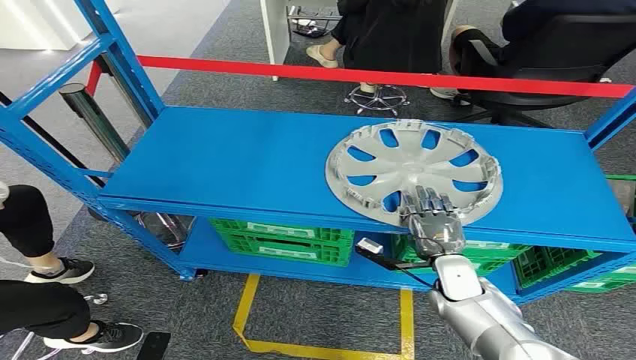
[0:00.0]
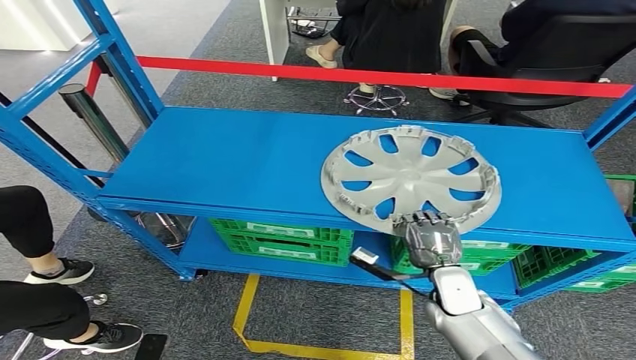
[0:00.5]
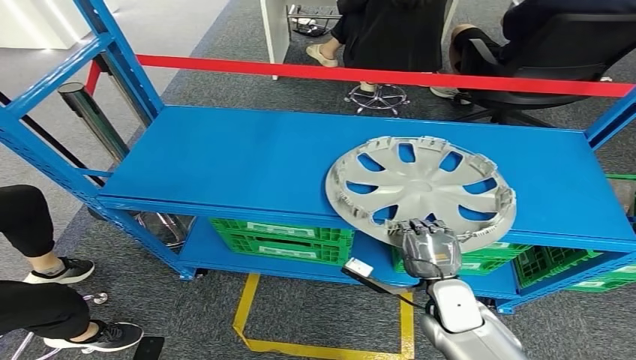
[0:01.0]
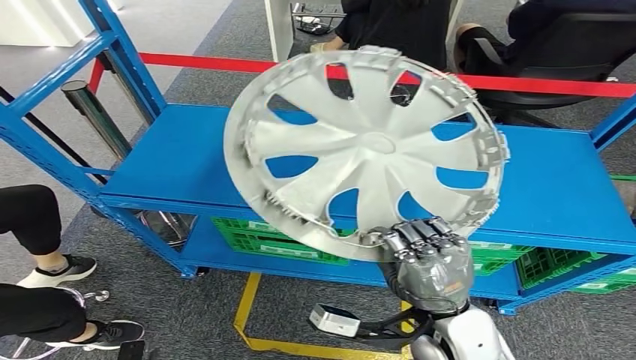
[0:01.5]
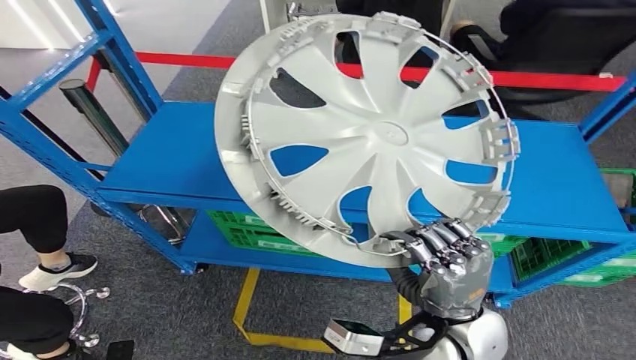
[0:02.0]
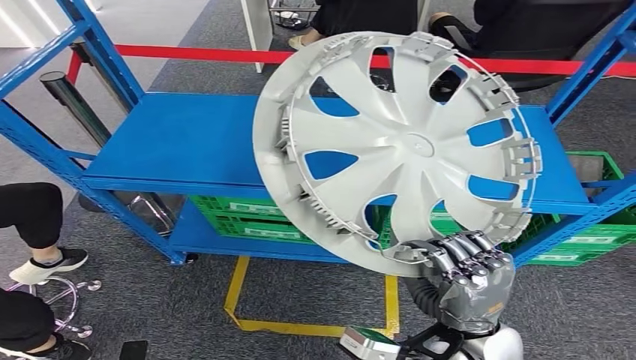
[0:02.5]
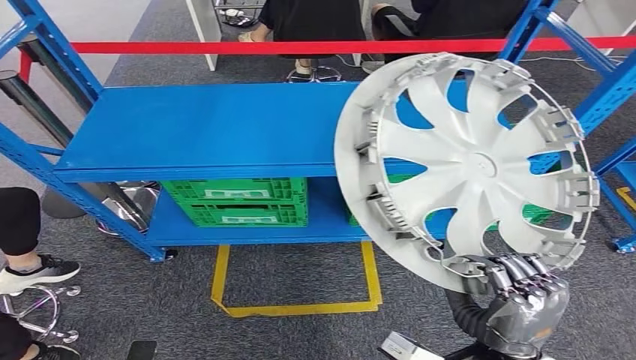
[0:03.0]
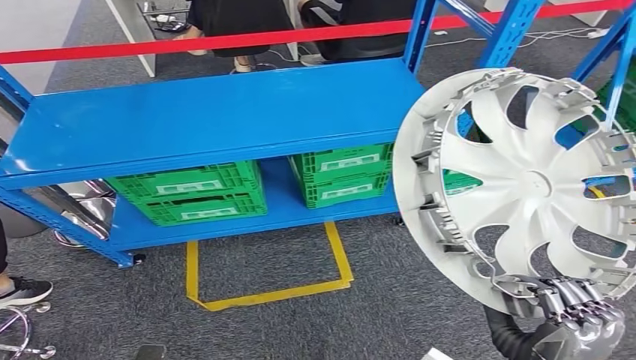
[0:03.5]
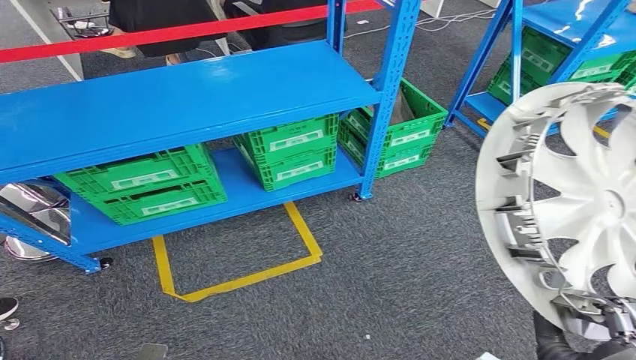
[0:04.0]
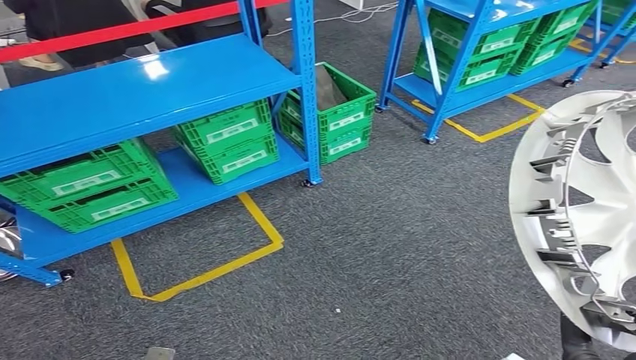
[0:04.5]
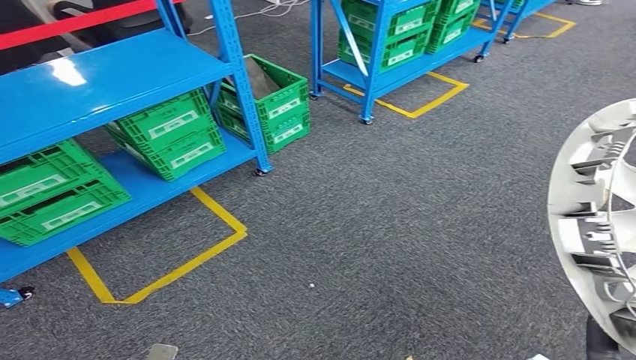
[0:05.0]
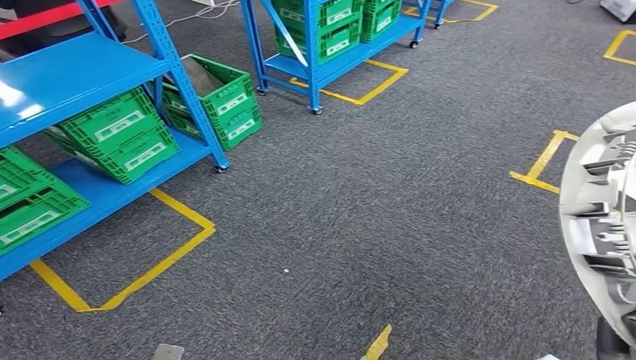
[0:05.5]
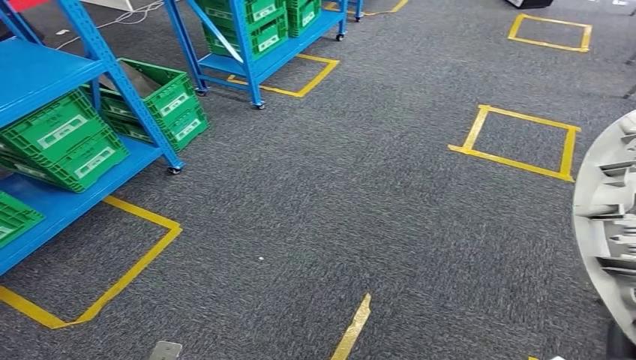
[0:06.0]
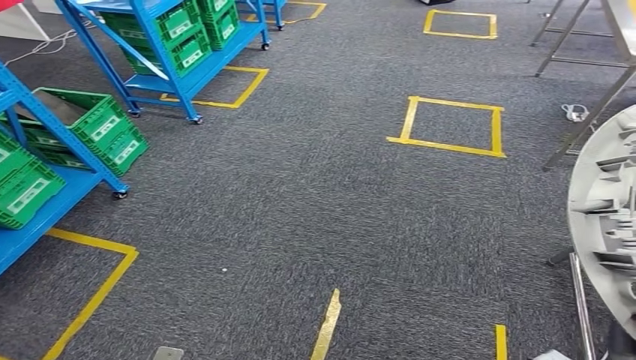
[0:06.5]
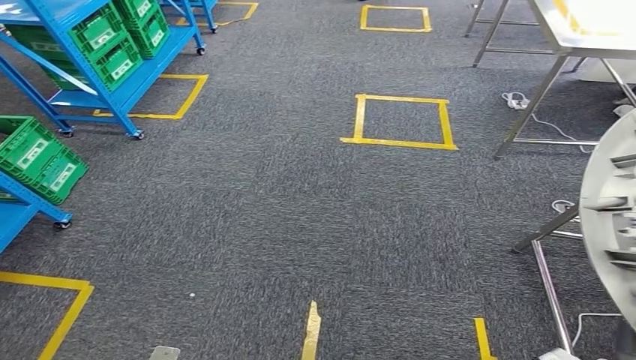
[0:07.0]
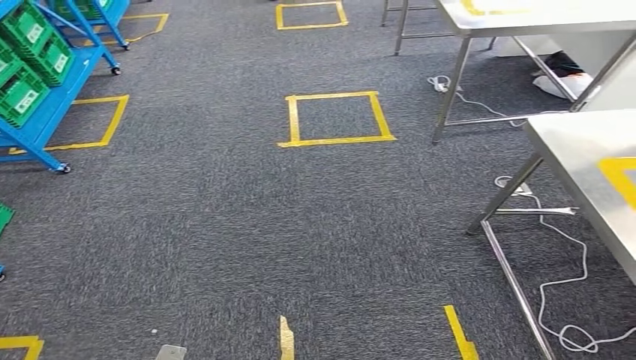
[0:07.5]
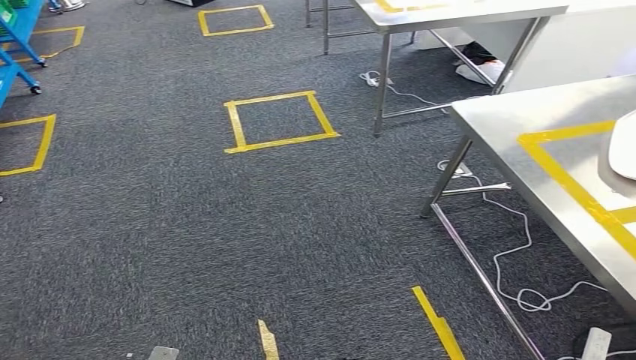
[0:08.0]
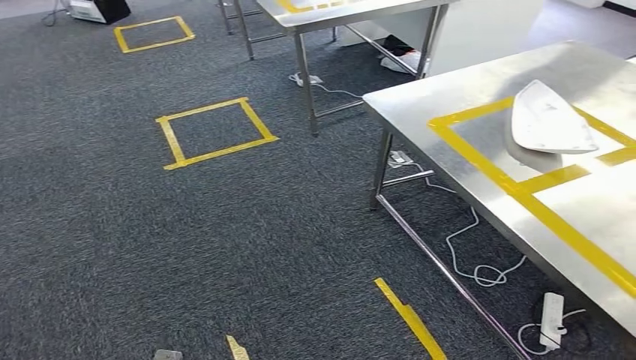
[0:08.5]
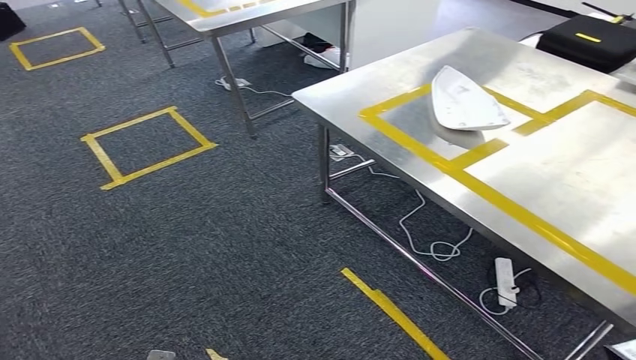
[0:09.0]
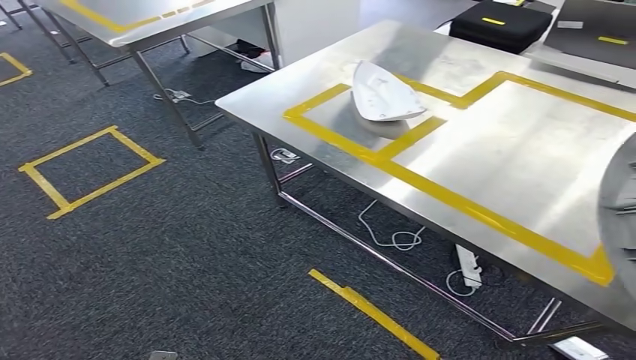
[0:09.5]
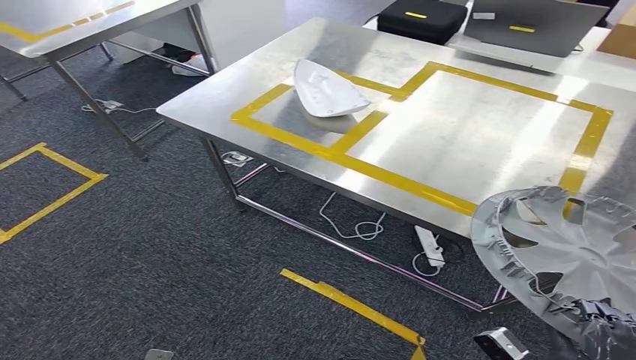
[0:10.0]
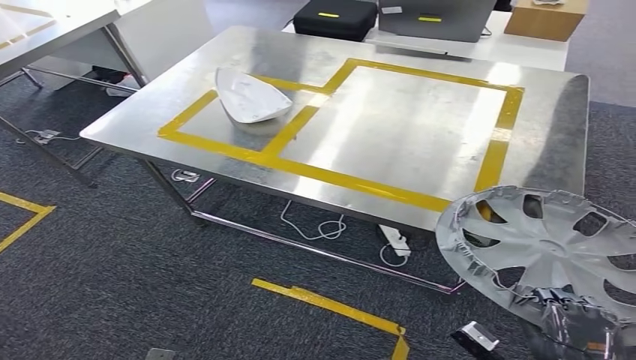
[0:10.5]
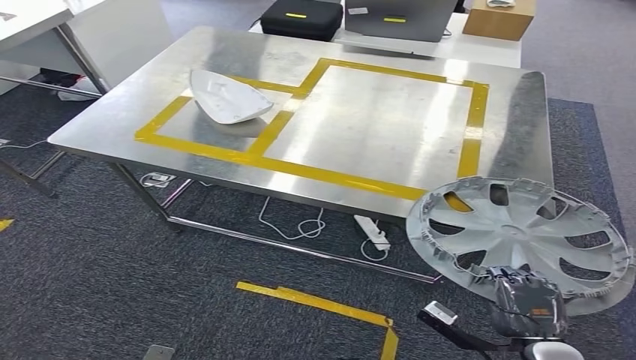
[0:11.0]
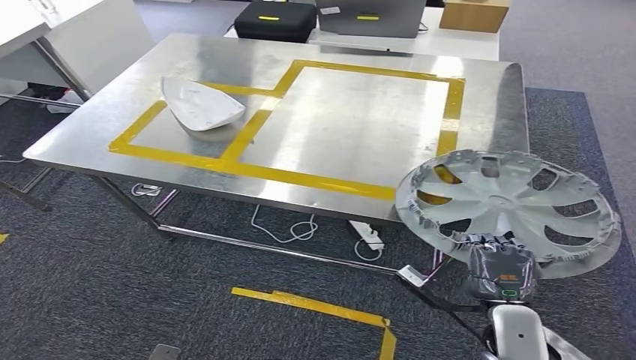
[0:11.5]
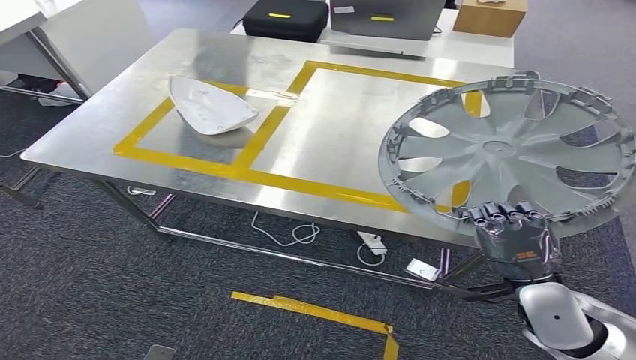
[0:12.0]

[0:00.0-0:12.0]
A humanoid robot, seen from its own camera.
Step, 0:00.0 to 0:01.5: Pick up the small component from the shelf.

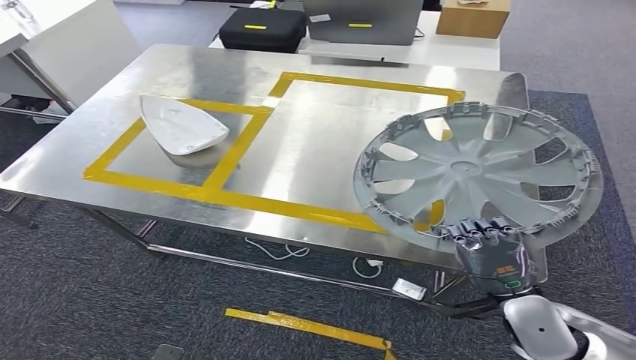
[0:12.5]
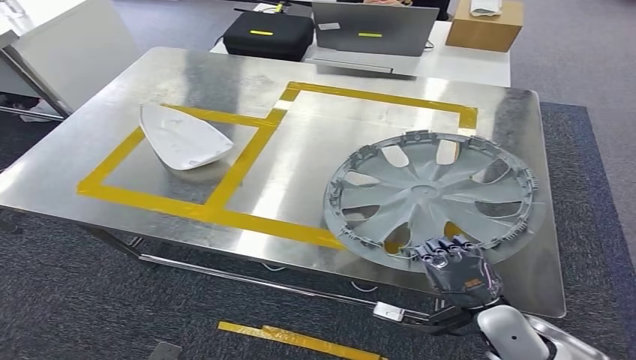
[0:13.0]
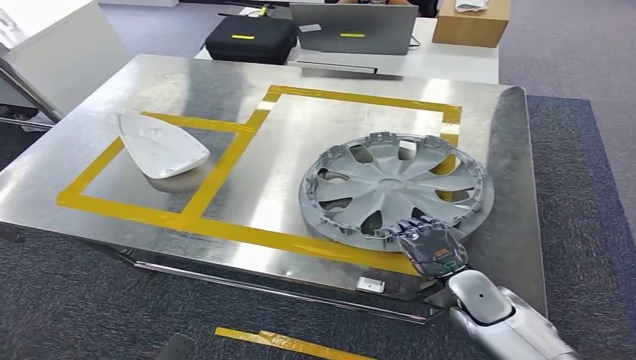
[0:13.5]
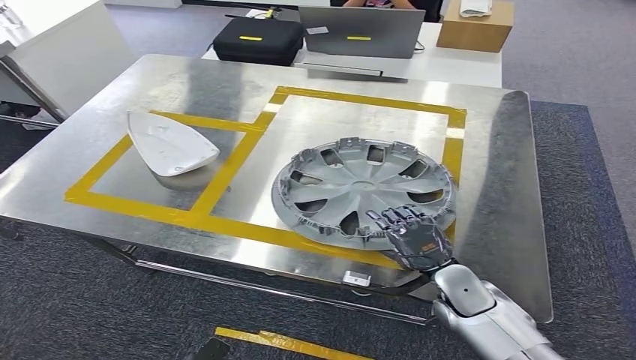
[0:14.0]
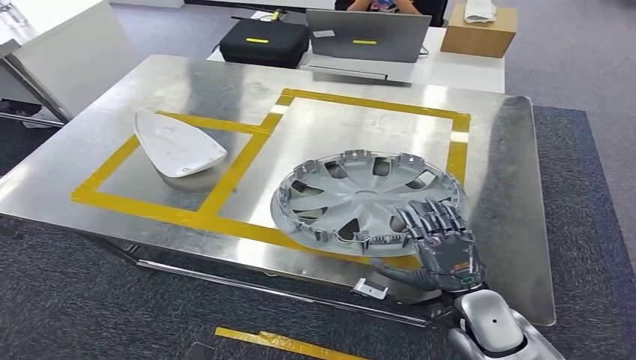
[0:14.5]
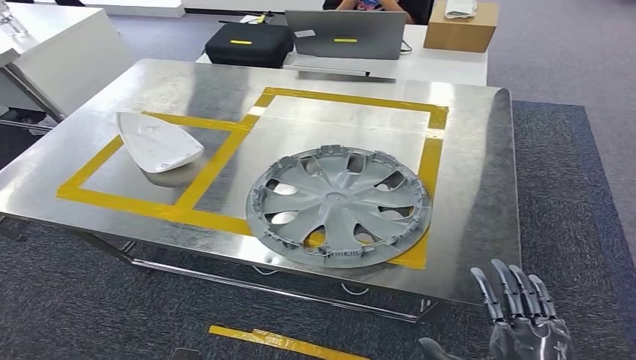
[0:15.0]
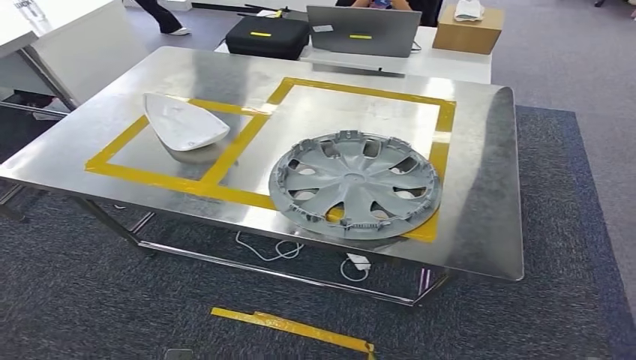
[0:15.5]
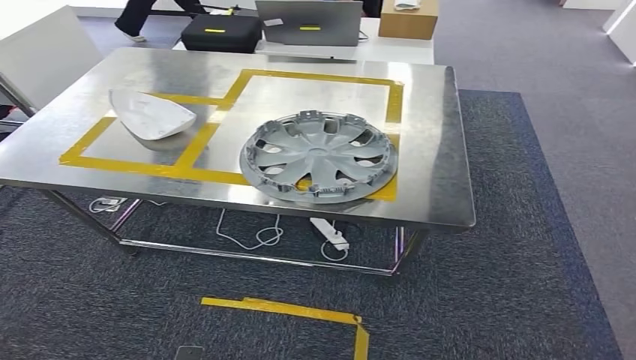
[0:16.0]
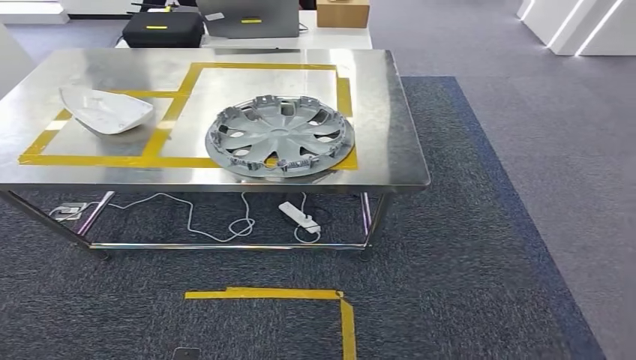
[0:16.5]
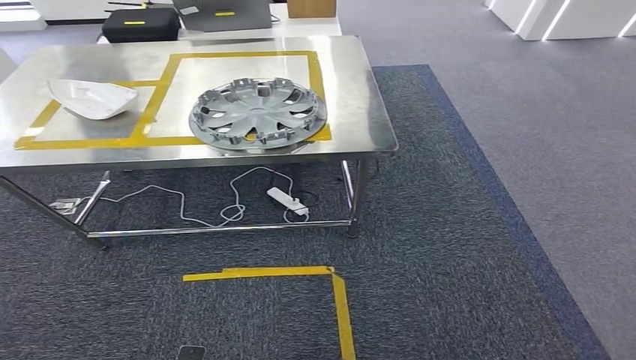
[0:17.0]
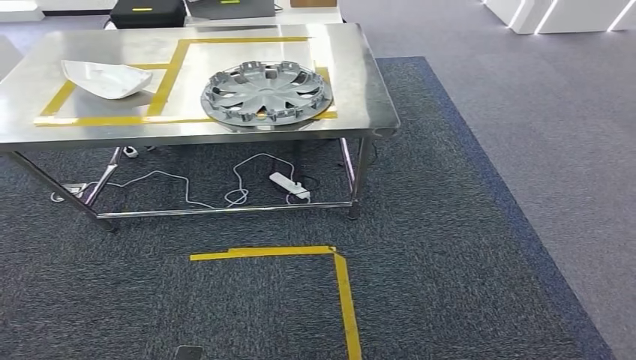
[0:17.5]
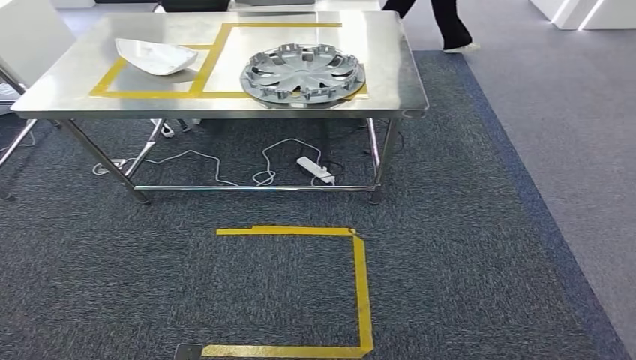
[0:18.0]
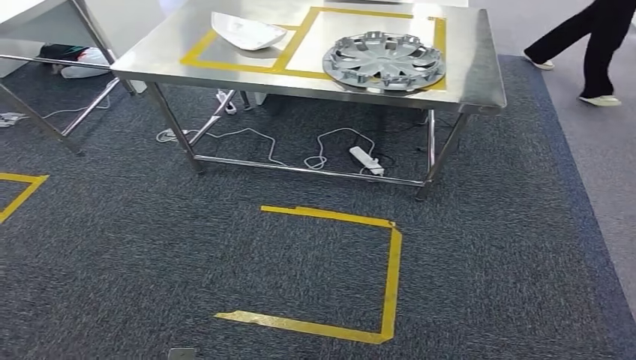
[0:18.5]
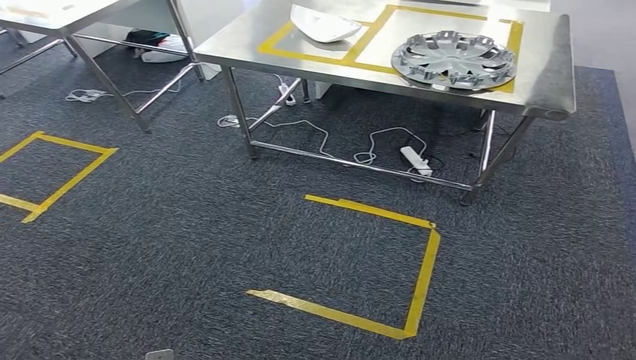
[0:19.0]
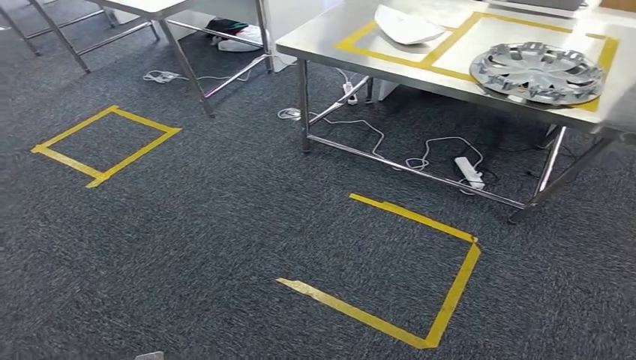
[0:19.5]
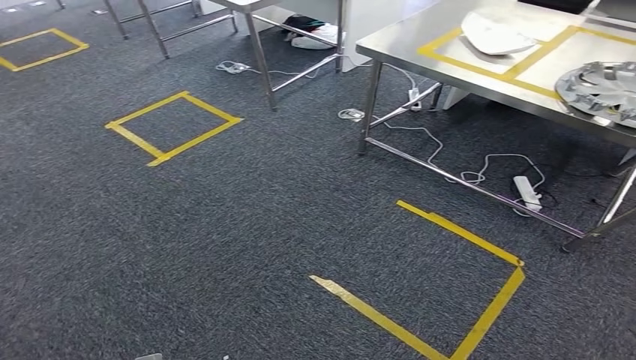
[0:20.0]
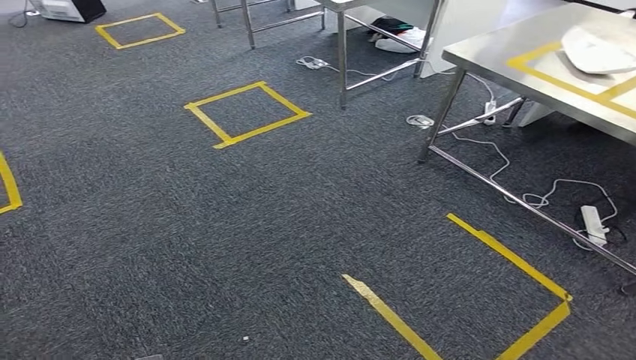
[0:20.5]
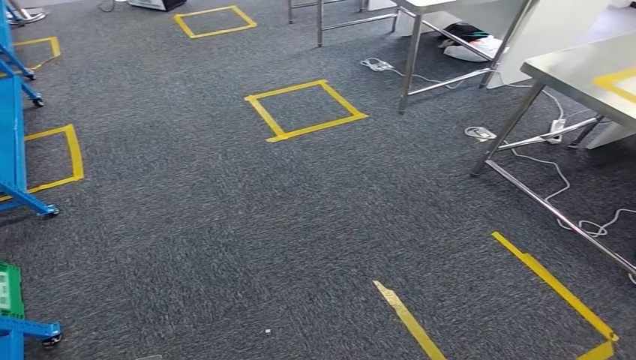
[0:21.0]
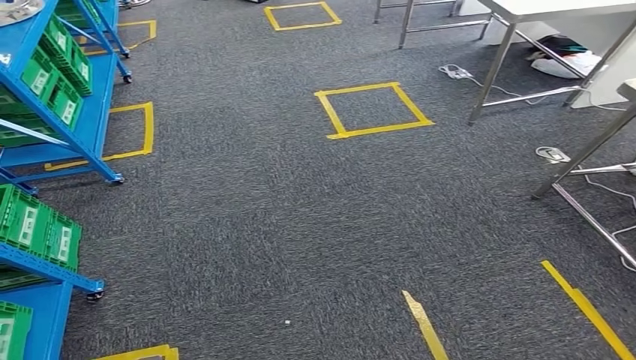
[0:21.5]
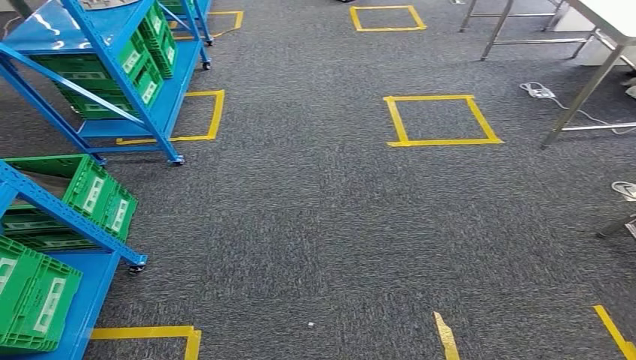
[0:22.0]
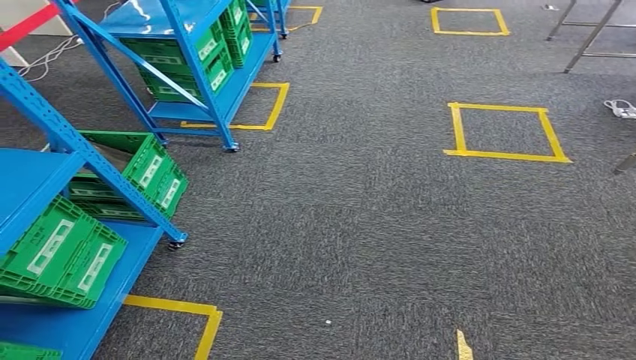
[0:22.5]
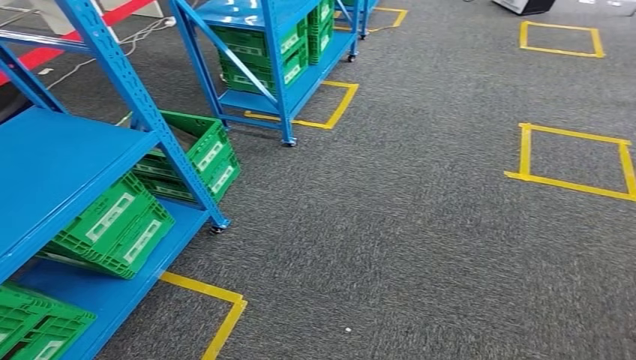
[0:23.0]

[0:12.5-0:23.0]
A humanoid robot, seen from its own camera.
Step, 0:12.5 to 0:15.5: Insert the small component into the corresponding slot on the workbench.
